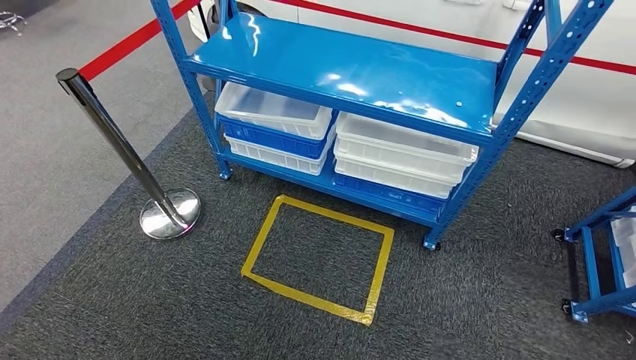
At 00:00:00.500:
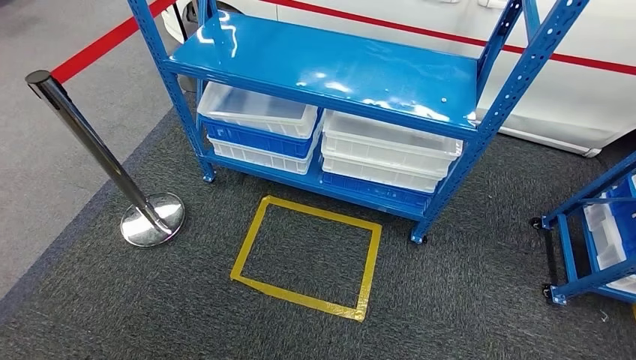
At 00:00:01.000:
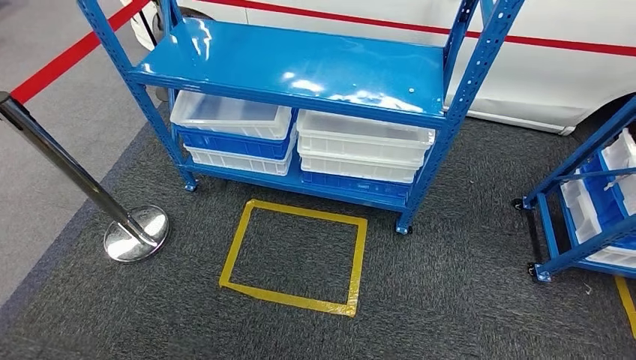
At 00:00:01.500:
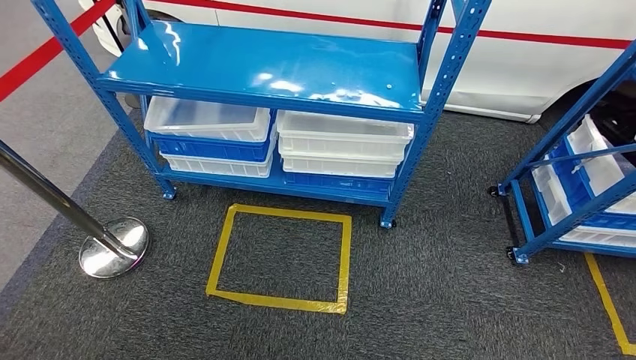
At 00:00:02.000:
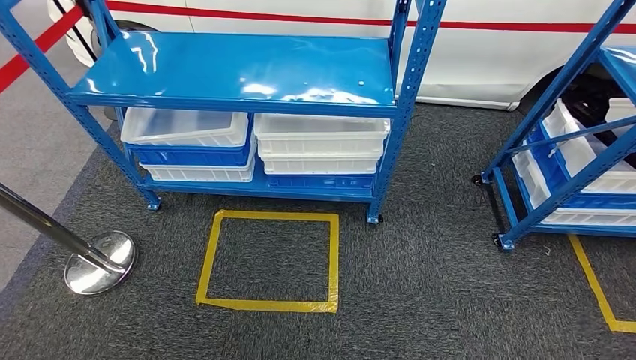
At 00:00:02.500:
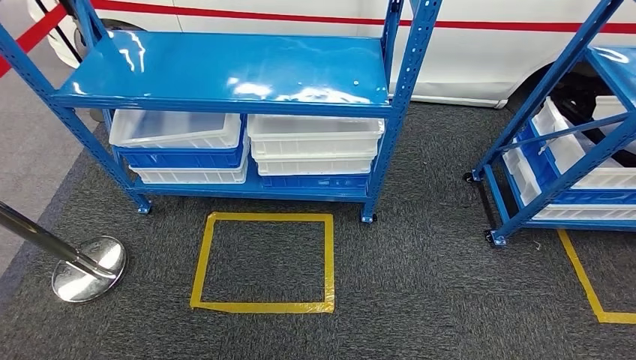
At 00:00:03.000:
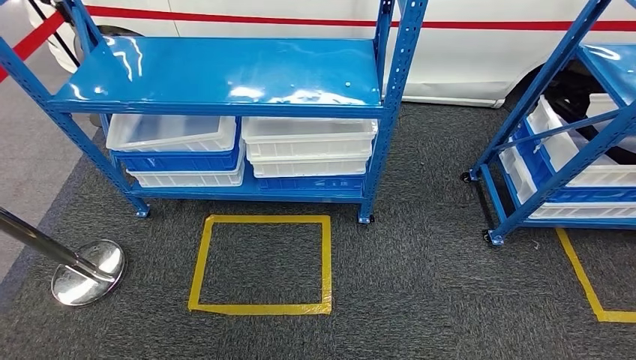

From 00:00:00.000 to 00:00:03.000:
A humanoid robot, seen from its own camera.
Step, from 00:00:00.000 to 00:00:03.000: Return to the initial position at the shelf.
